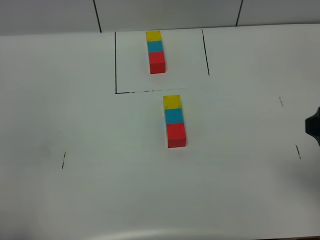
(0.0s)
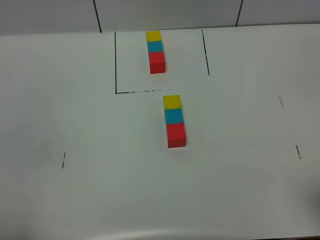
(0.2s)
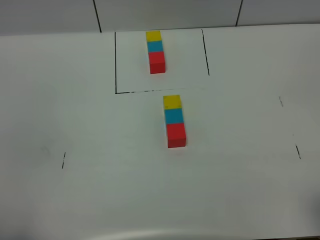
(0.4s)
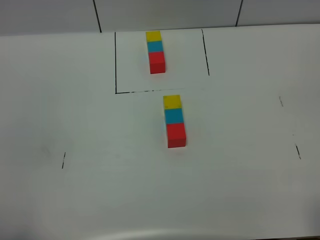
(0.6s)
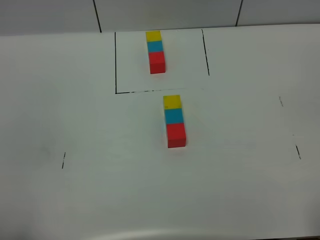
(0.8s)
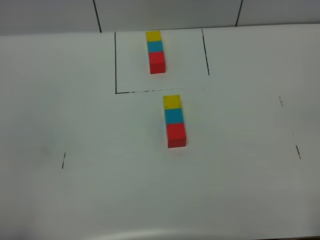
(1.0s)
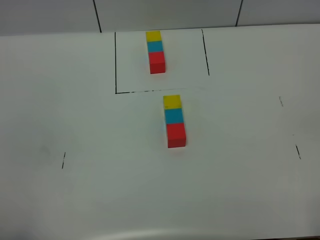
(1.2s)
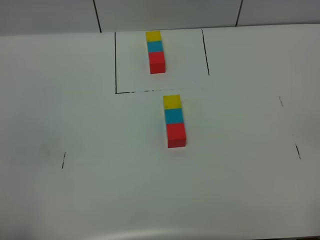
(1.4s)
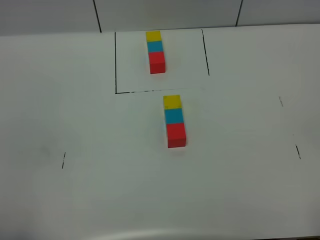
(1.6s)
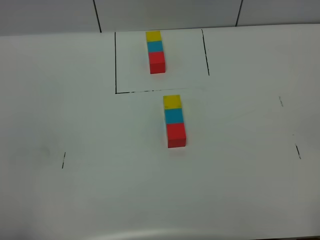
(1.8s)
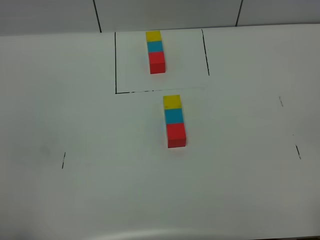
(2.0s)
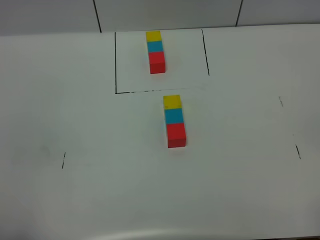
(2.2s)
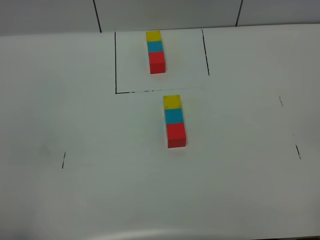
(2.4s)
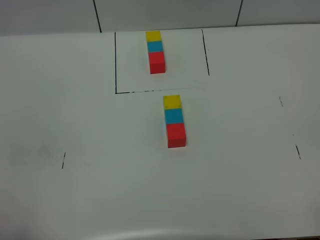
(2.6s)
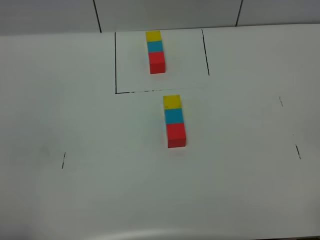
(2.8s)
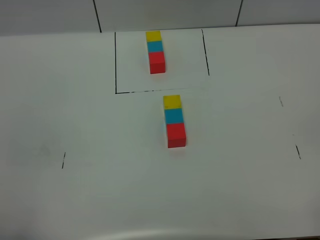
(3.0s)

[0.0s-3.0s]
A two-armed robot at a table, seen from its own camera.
Task of the whole recording: According to the building block template in front, assemble the scattered blocks together.
0.0s to 1.6s: The right gripper goes approximately 15 cm backward.

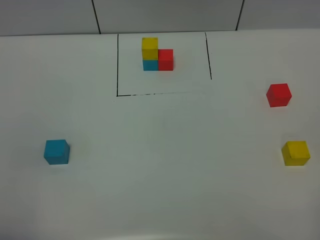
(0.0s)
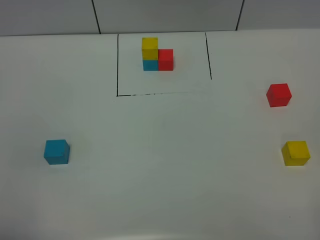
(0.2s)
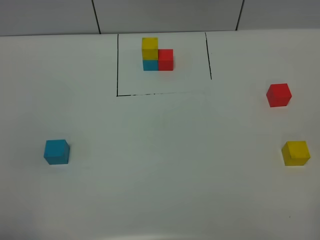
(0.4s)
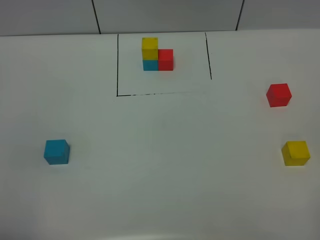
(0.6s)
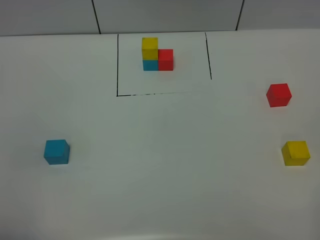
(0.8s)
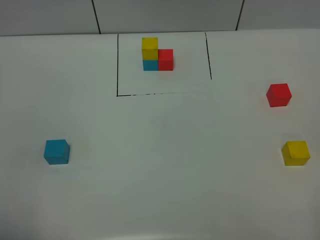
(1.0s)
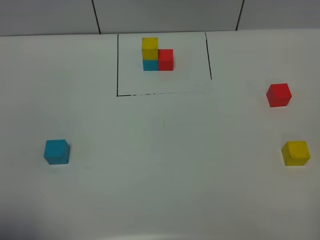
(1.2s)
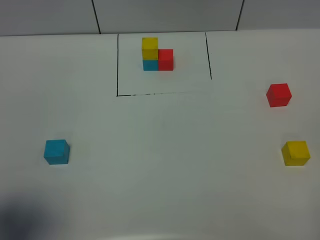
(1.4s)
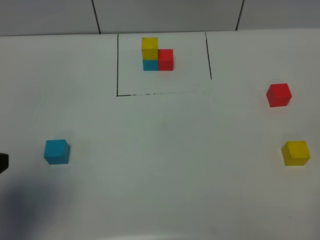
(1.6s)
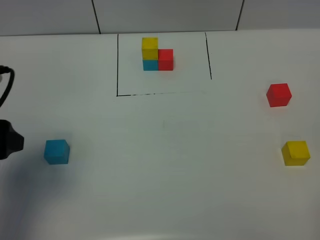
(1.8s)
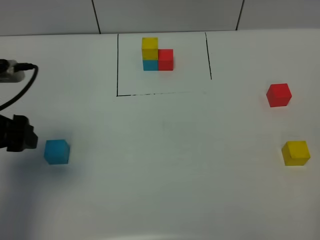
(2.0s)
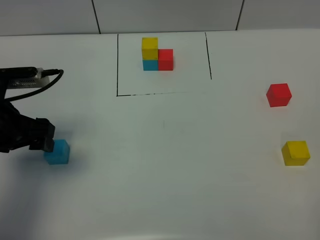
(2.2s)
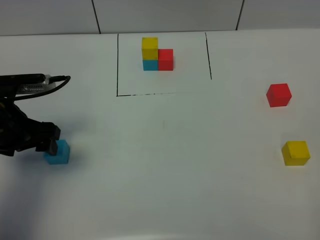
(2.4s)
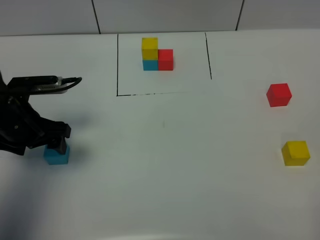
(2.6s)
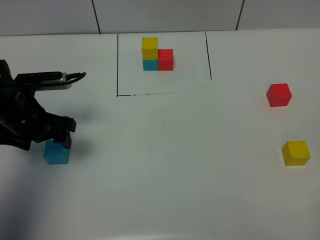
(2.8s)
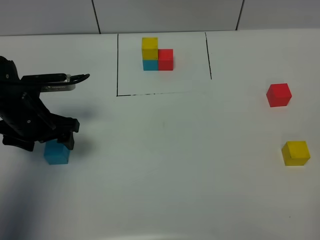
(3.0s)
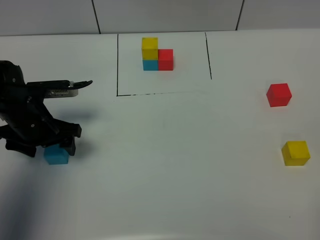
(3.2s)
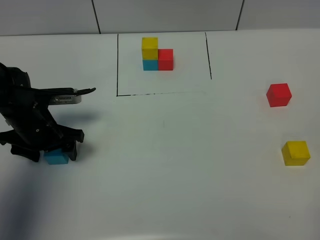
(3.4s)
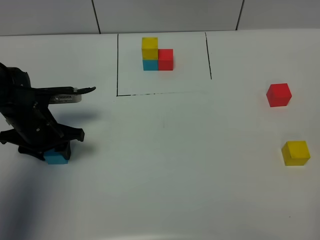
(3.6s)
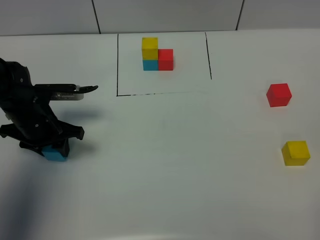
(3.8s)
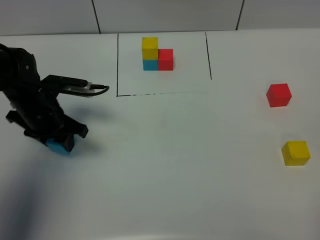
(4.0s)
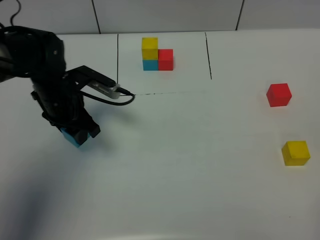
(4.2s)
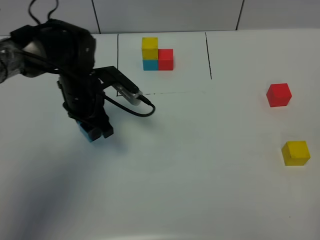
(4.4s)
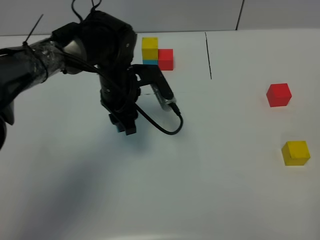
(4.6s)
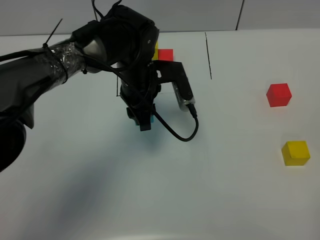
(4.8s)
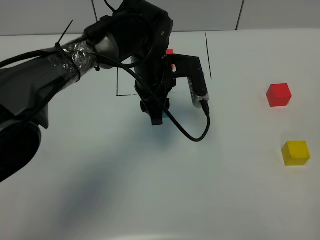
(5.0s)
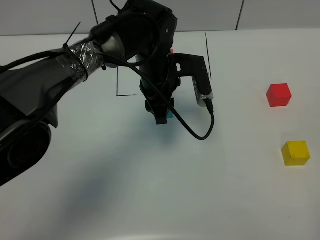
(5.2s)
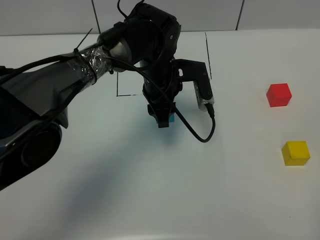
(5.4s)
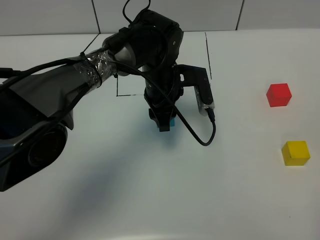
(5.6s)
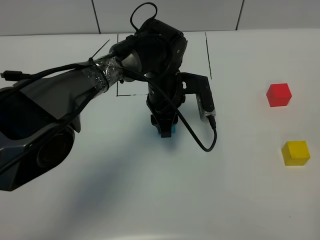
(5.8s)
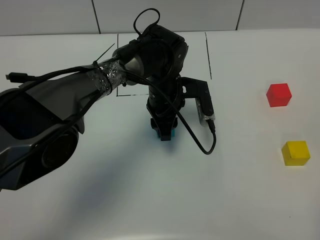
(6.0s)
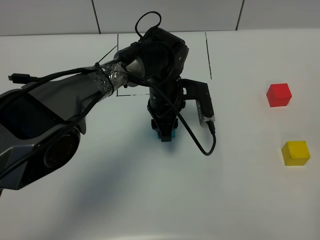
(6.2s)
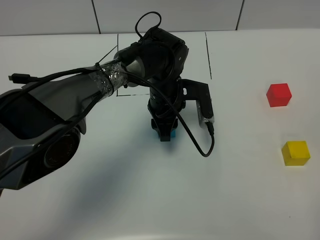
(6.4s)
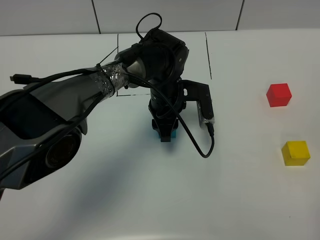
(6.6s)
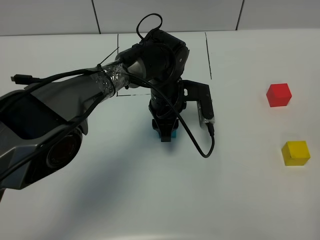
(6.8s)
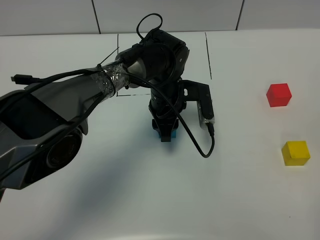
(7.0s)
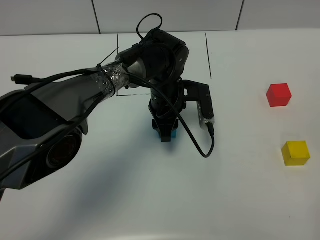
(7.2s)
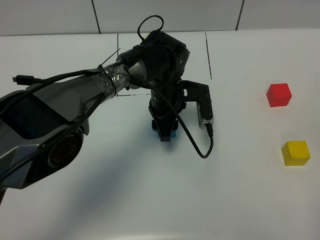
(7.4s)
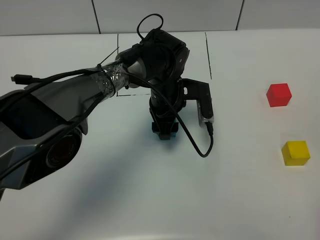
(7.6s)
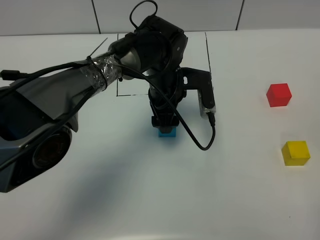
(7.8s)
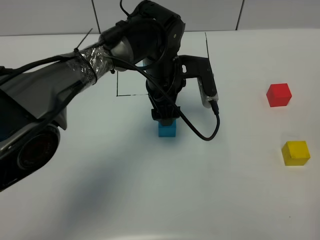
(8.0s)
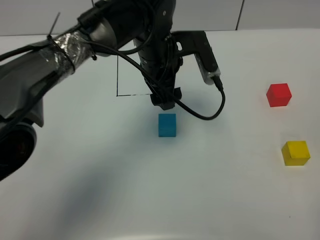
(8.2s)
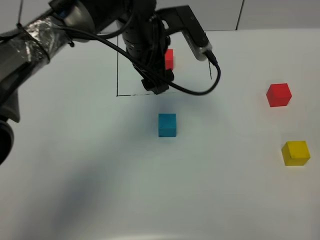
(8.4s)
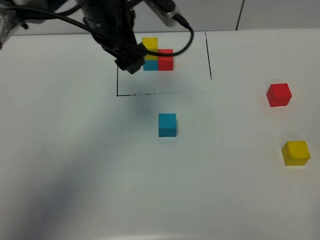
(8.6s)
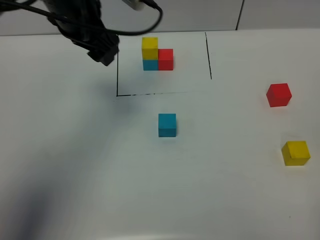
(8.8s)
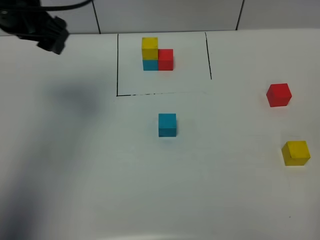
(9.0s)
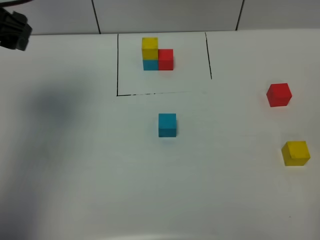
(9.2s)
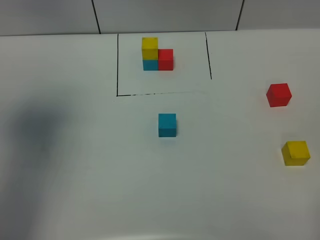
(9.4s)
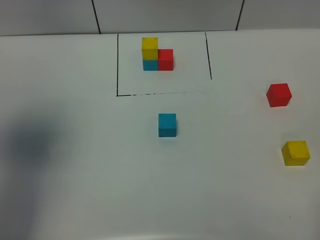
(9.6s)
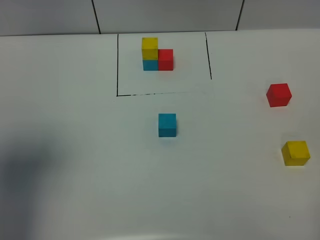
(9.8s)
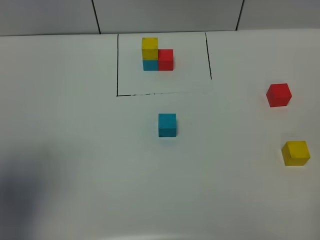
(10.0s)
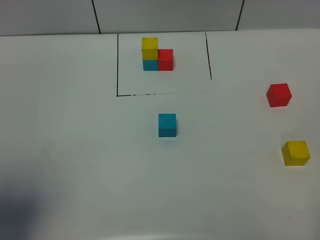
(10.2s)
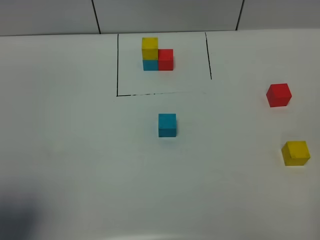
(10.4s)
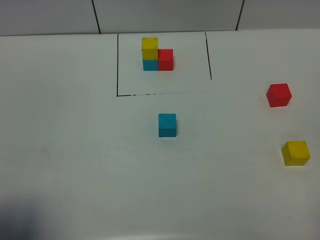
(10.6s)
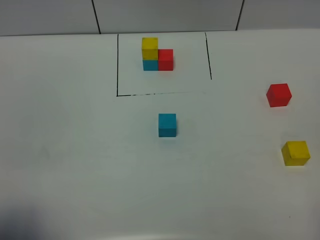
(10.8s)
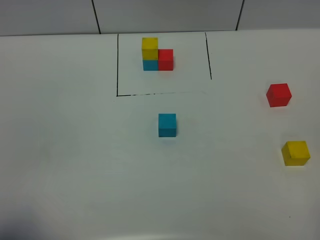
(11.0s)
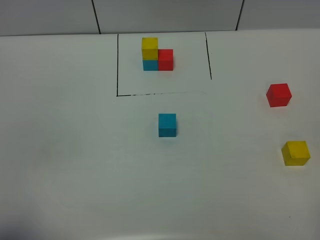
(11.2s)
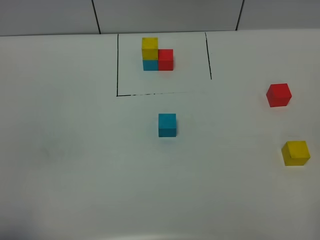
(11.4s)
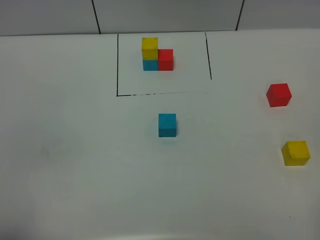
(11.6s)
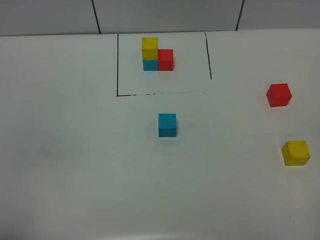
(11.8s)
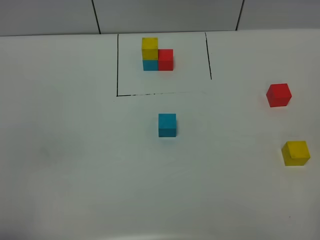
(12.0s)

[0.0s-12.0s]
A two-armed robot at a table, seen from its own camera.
Task of the whole recording: According to the building block template in front, assemble the scattered blocks together.
Step, 0.0s to 7.4s: Put the blue build block in the center of the table.
0.0s to 1.6s: The left gripper travels forward by some 15 cm.
1.6s to 3.0s: The left gripper goes about 25 cm forward and downward.
3.0s to 4.4s: The left gripper goes roughly 10 cm to the right and forward, and closes its fingers.
4.4s to 6.0s: The left gripper goes some 15 cm to the right.
6.0s to 7.6s: The left gripper opens its fingers.
7.6s to 9.0s: The left gripper travels to the left and upward by approximately 30 cm.
9.0s to 10.4s: The left gripper shifts some 30 cm backward.
10.4s to 12.0s: The left gripper goes about 10 cm backward and downward.

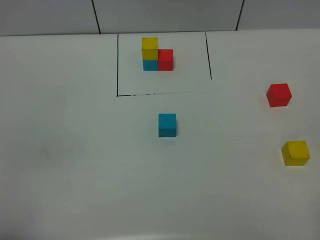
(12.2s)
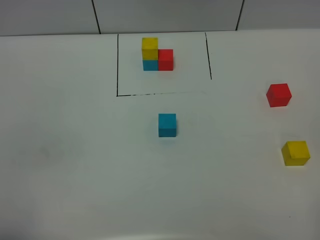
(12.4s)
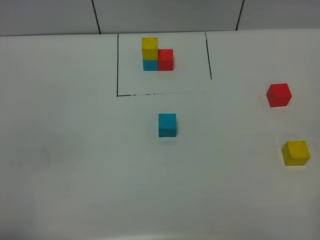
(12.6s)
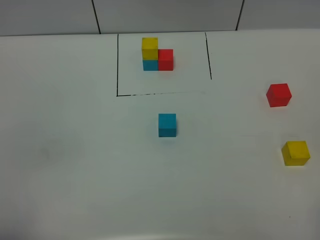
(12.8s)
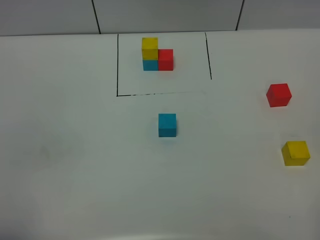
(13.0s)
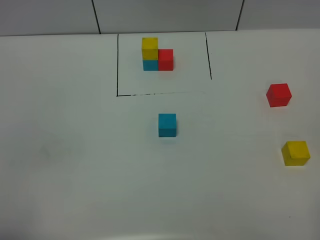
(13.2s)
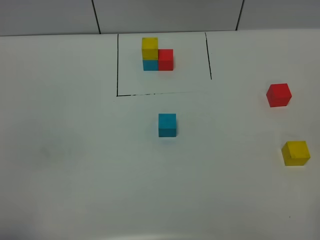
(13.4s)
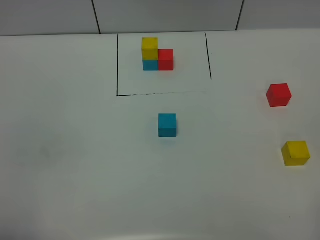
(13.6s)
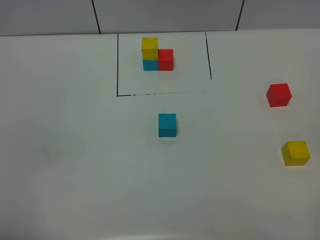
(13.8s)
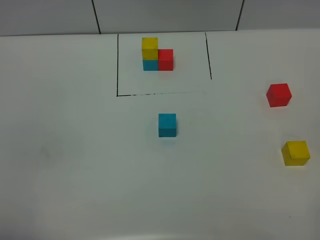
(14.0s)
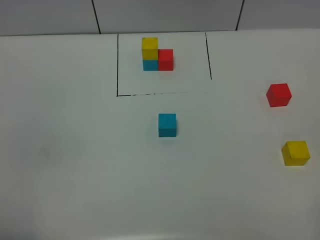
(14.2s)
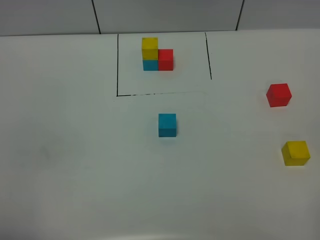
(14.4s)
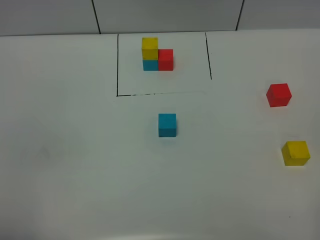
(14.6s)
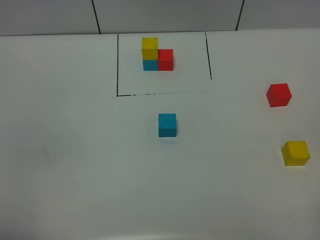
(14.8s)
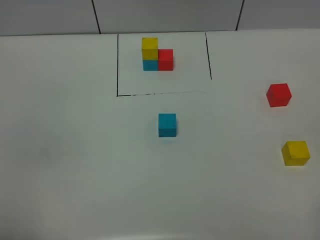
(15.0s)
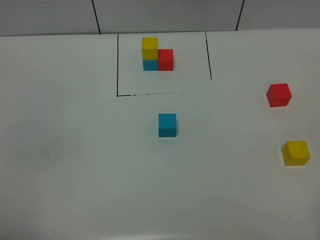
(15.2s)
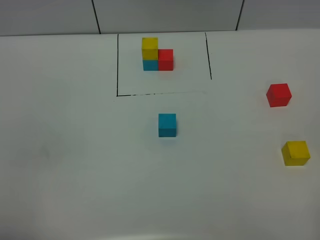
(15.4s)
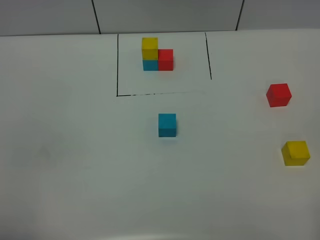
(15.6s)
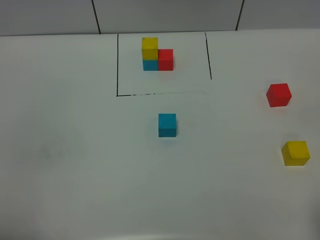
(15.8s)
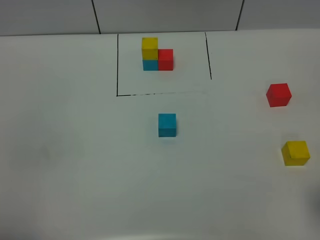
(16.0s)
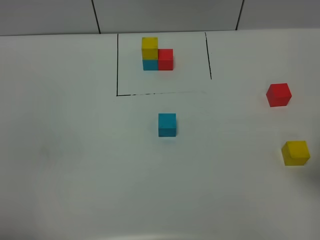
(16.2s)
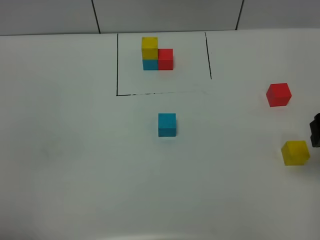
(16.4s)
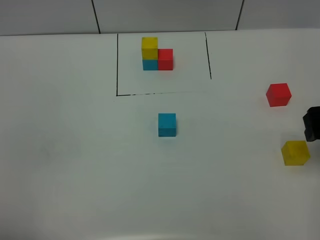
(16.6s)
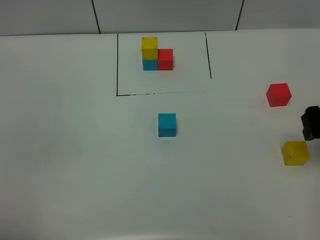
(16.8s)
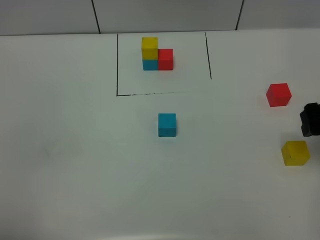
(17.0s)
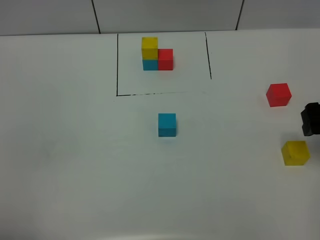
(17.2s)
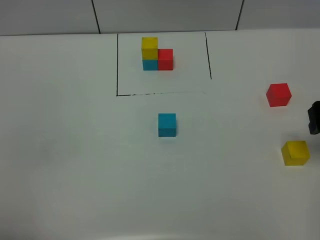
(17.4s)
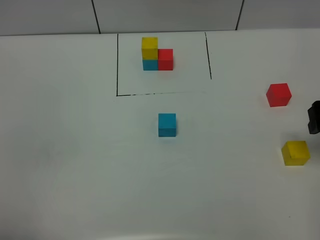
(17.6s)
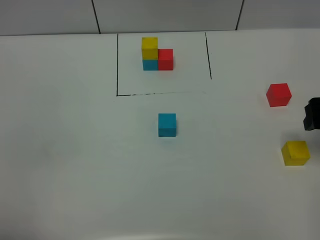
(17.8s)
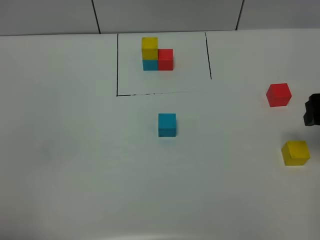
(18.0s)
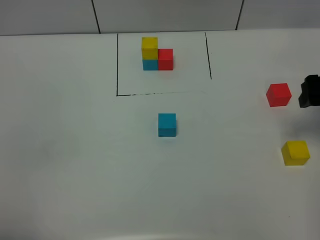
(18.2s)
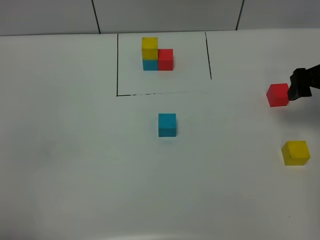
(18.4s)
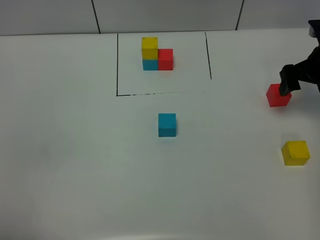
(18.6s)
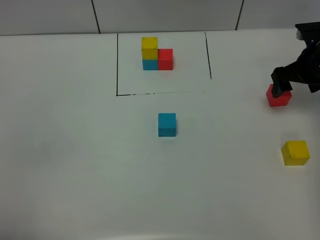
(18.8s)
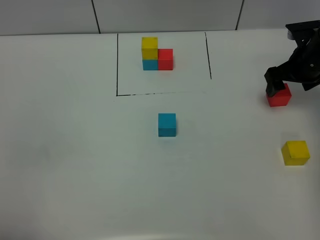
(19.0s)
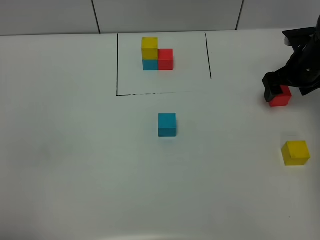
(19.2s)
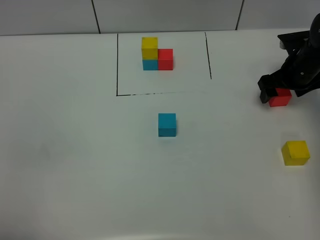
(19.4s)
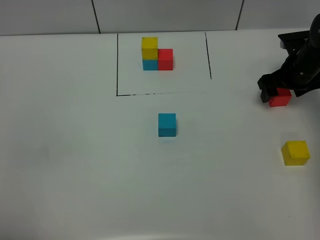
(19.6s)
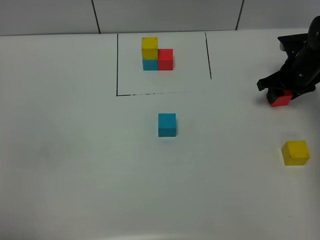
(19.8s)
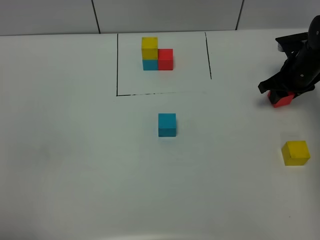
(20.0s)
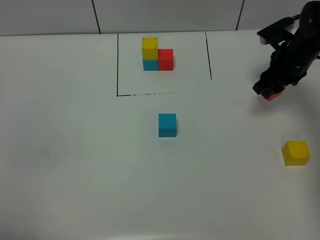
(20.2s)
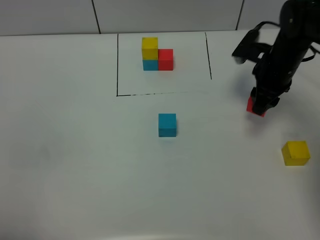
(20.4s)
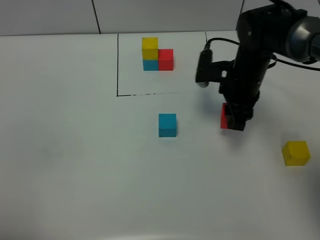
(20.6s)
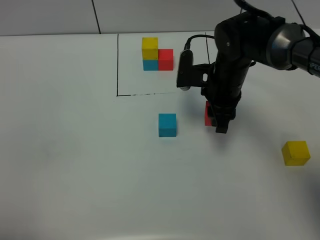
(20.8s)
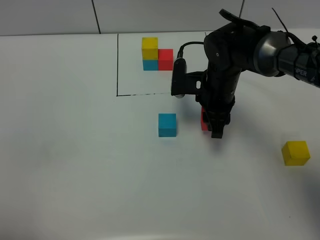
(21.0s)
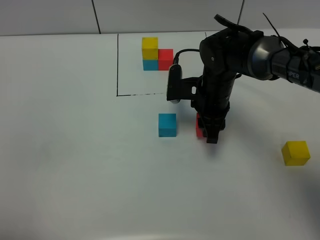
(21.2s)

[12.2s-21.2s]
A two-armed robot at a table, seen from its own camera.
Task of the whole recording: According to the building block template in front, assemble the scattered blocks together.
13.8s to 15.2s: Neither gripper changes place.
15.2s to 16.6s: The right gripper shifts roughly 25 cm forward.
16.6s to 18.2s: The right gripper is displaced forward by roughly 5 cm.
18.2s to 19.8s: The right gripper travels forward and downward by approximately 15 cm, and closes its fingers.
19.8s to 21.2s: The right gripper goes approximately 20 cm to the left and backward.
